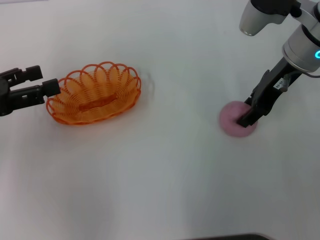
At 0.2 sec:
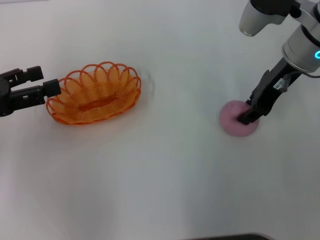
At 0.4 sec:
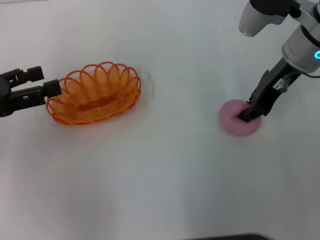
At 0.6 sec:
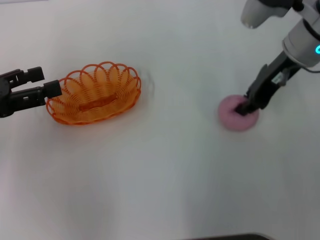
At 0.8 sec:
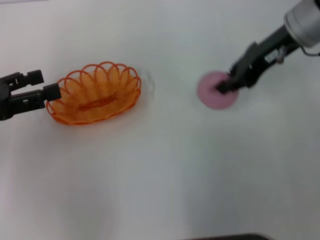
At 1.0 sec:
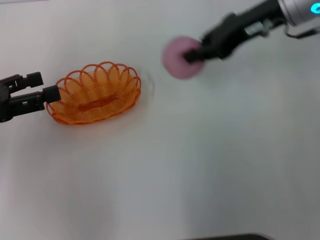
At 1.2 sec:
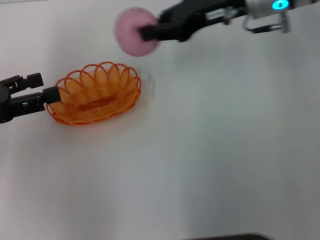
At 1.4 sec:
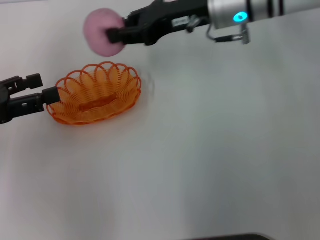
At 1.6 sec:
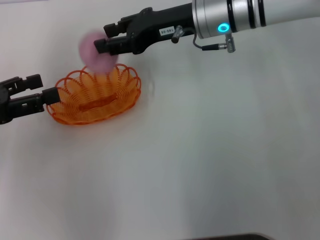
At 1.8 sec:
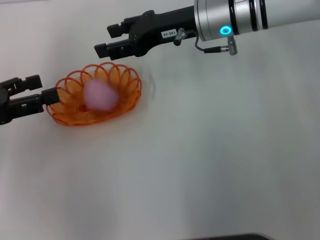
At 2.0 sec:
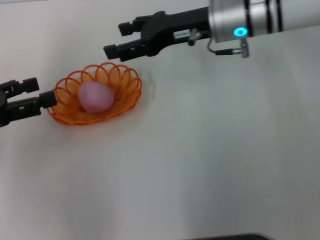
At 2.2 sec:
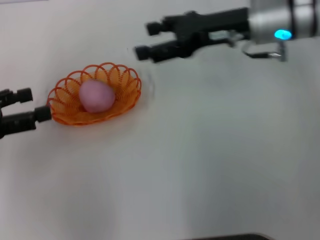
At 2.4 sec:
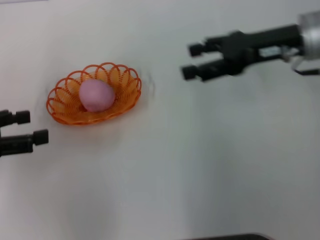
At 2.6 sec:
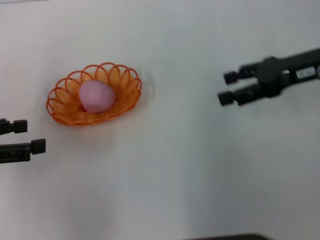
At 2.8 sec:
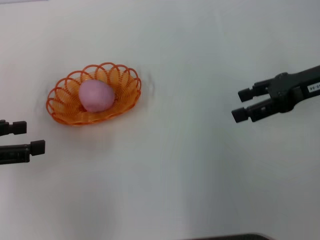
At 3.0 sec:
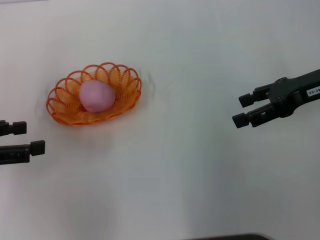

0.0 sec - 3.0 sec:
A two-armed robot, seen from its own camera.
Step, 1.0 sec - 2.0 sec: Place the peach into the basket with the right gripper.
0.0 sec - 1.6 sec: The right gripper is displaced to the left by about 10 cm, and closes its fingers.
1.6 sec - 3.0 sec: The right gripper goes about 20 cm to the right and backward, and opens its fingers.

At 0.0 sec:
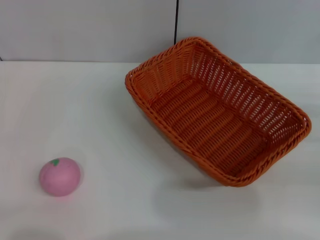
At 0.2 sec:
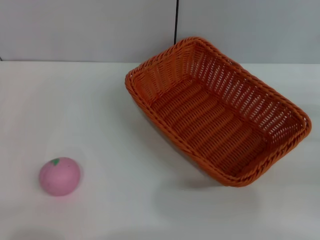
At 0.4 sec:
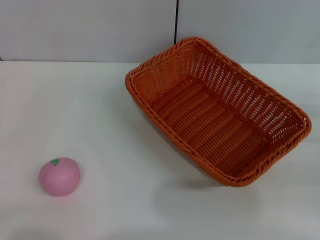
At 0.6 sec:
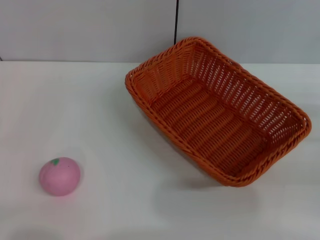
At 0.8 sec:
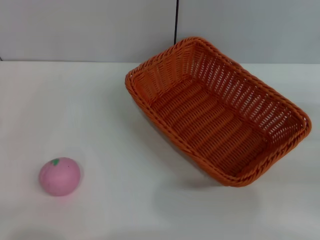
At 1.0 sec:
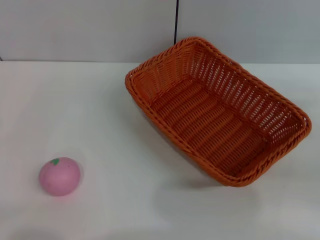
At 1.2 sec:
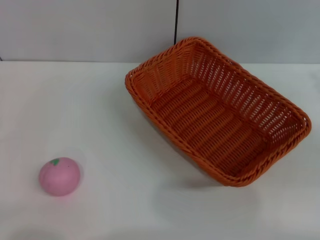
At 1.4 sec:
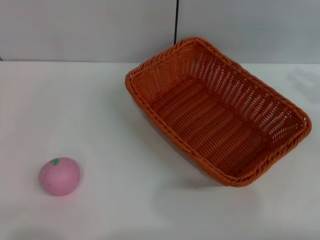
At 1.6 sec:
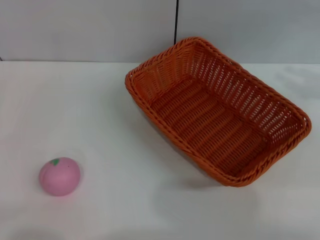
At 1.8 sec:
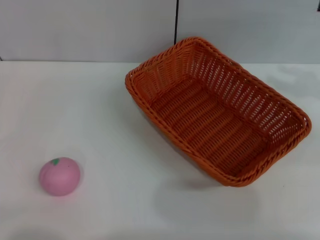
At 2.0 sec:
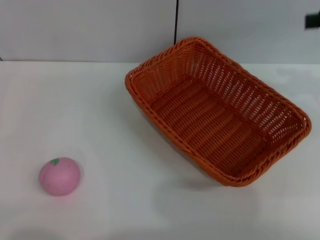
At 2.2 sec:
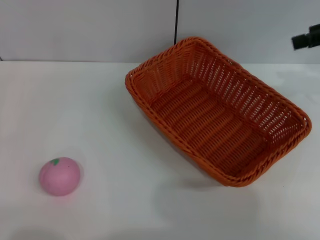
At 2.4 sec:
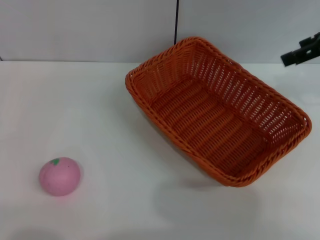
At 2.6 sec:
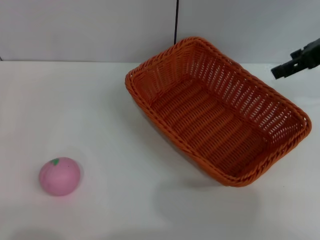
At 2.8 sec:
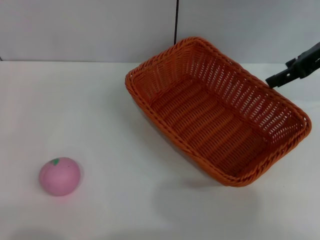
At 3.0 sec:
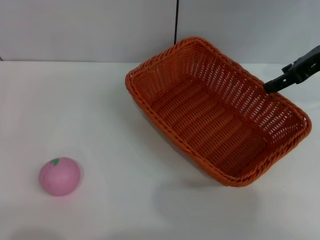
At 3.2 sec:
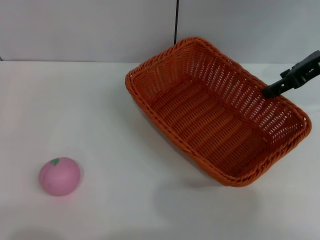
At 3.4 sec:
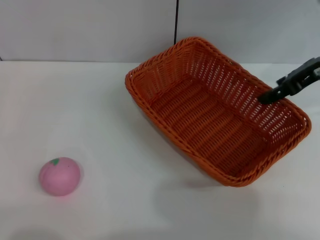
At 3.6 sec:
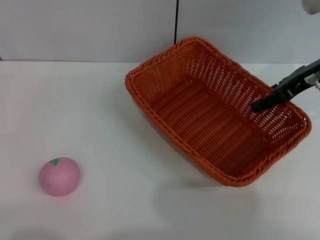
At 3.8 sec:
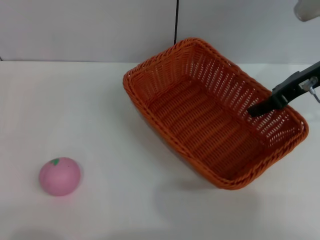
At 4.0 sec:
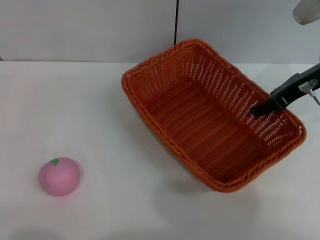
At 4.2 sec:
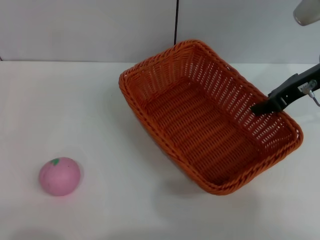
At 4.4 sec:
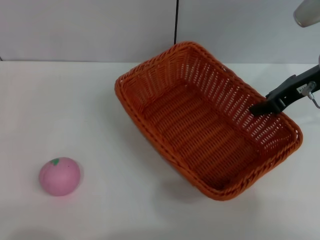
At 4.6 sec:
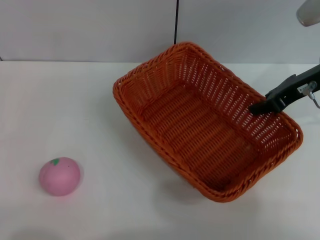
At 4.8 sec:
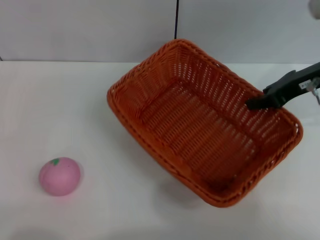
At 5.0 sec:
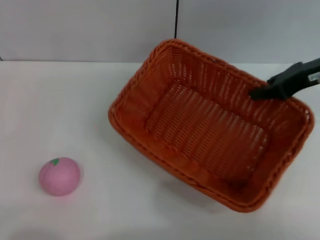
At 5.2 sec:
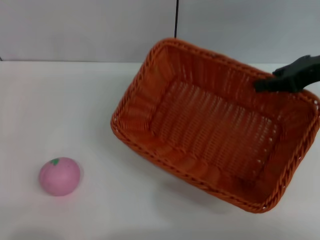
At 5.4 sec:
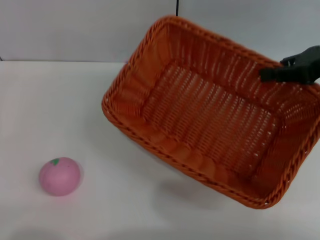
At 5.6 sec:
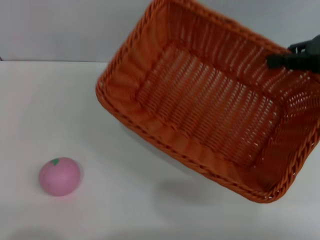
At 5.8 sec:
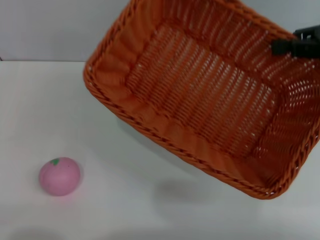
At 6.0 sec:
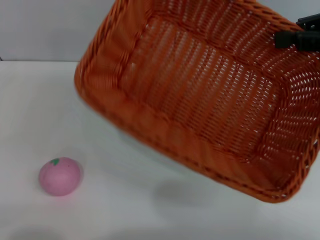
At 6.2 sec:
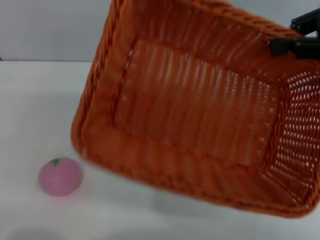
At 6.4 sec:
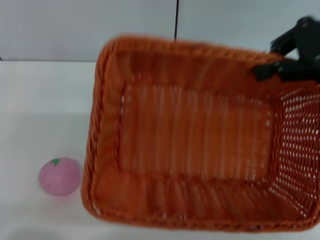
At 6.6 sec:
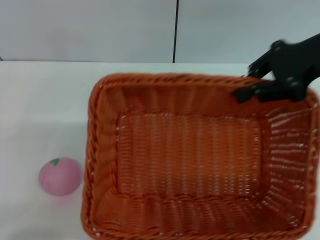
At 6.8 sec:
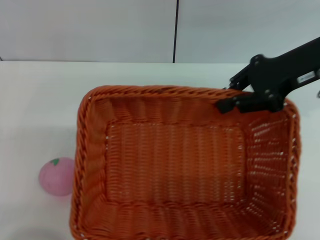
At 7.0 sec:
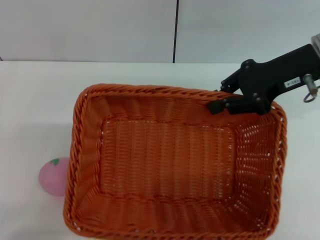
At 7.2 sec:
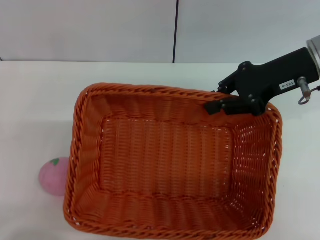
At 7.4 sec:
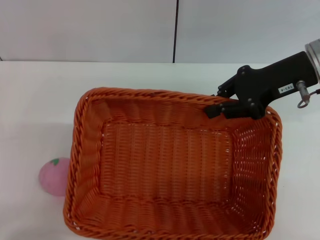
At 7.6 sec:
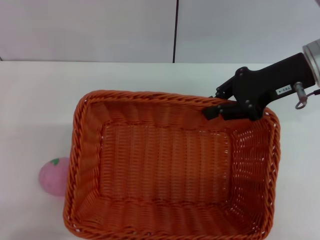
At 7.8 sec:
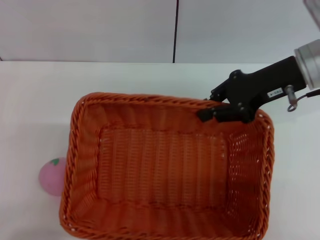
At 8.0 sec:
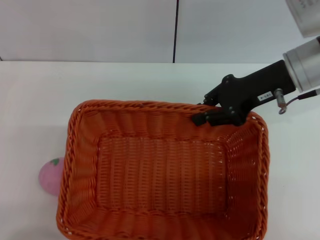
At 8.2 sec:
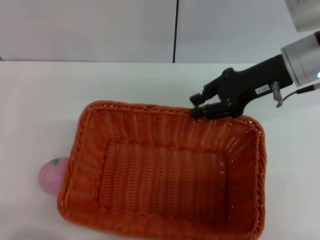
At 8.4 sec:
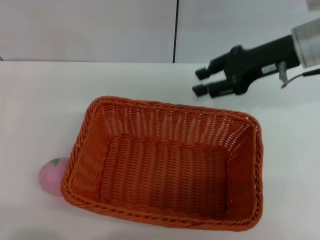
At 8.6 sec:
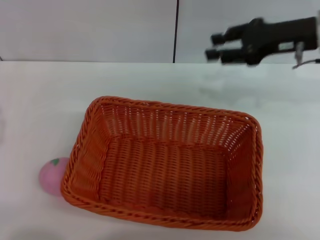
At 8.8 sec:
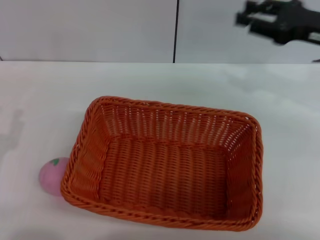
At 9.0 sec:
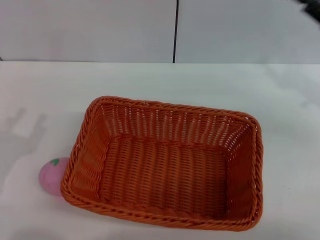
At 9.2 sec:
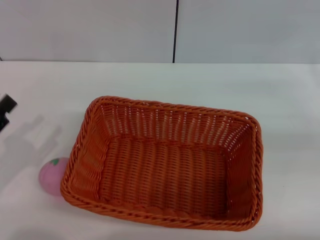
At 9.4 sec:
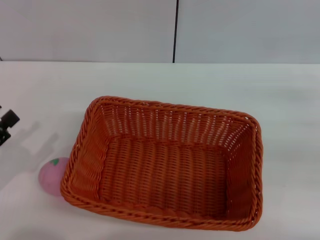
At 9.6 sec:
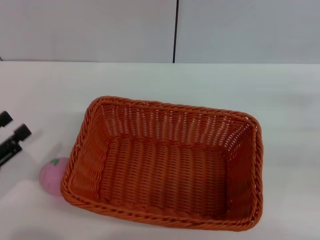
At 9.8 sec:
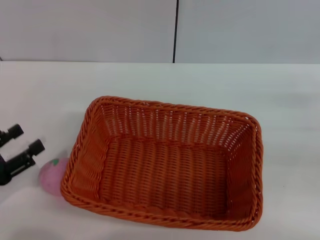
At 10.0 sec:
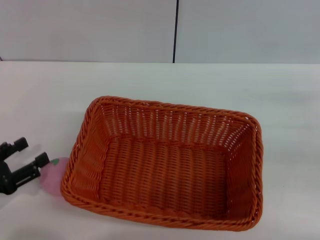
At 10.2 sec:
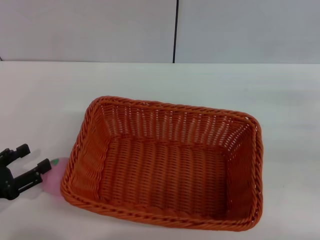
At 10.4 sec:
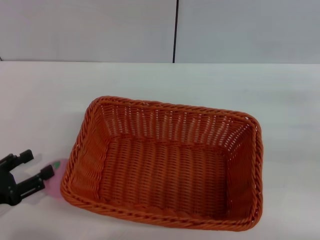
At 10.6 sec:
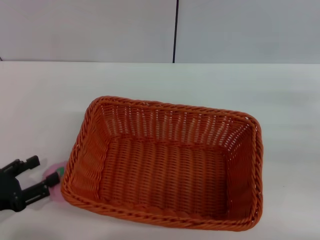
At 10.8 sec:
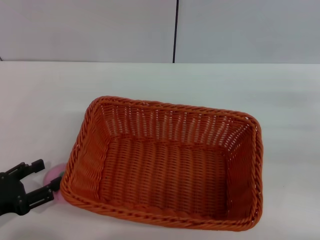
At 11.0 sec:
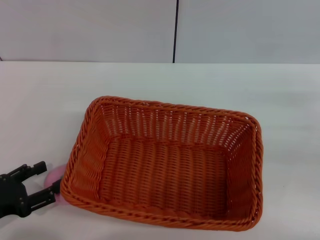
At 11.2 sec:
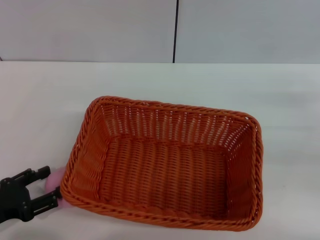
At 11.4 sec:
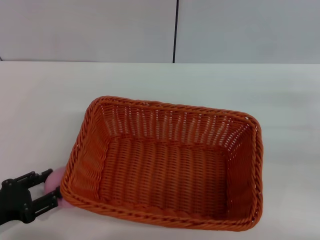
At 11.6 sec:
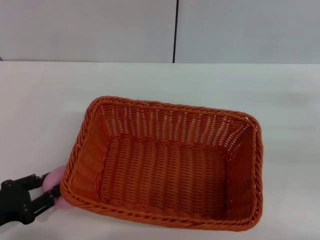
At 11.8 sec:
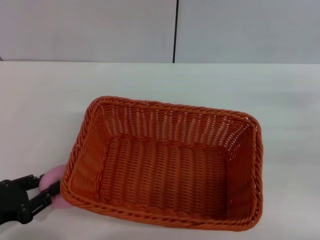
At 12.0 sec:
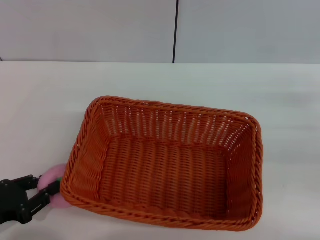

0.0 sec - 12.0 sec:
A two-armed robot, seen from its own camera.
Step, 0.0 sec - 5.4 sec: Pick up the light basket with the right gripper.
Step, 5.8 sec - 8.6 sec: Place the light basket in the center of view with the right gripper.
1.6 sec - 3.0 sec: The right gripper goes approximately 15 cm to the left and forward, and opens its fingers.
3.0 sec - 4.4 sec: The right gripper closes up.
4.4 sec - 6.0 sec: The right gripper heads upward and to the right, covering approximately 10 cm.
6.0 sec - 7.6 sec: The right gripper heads to the left and downward, covering approximately 10 cm.
7.6 sec - 9.0 sec: The right gripper heads to the right, covering some 10 cm, and opens up.
9.0 sec - 10.4 sec: The right gripper moves to the right, approximately 5 cm.
10.4 sec - 12.0 sec: The left gripper closes its fingers.

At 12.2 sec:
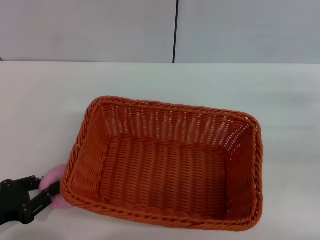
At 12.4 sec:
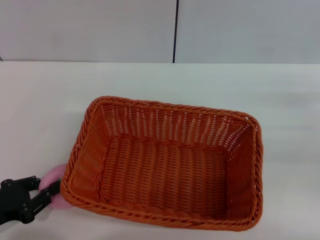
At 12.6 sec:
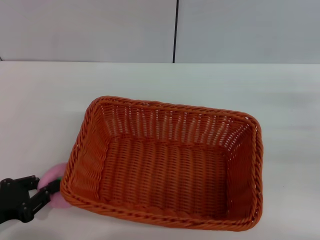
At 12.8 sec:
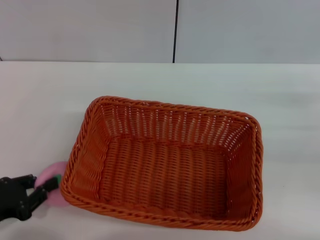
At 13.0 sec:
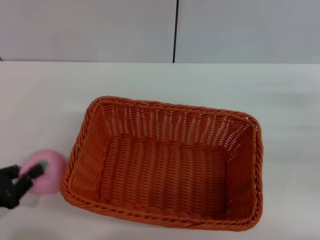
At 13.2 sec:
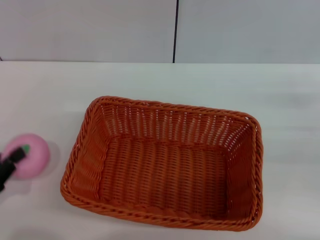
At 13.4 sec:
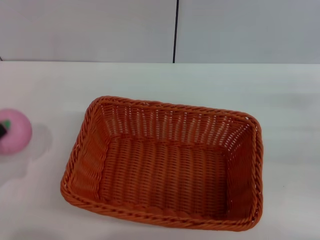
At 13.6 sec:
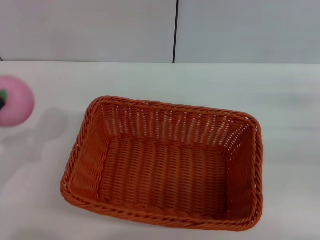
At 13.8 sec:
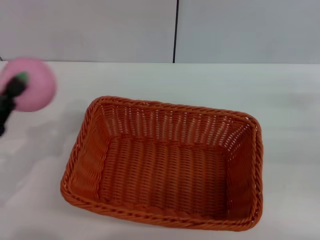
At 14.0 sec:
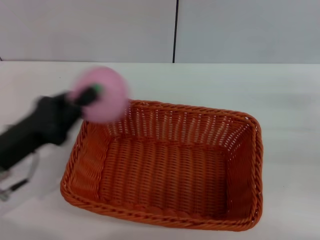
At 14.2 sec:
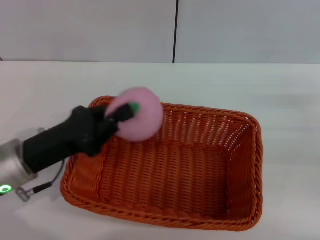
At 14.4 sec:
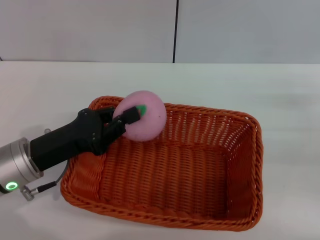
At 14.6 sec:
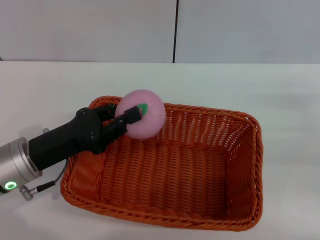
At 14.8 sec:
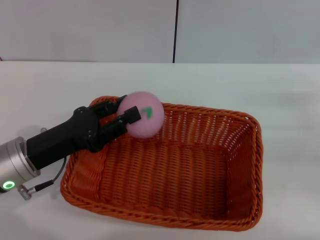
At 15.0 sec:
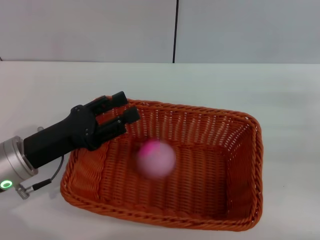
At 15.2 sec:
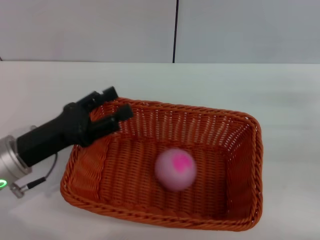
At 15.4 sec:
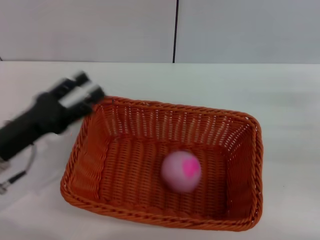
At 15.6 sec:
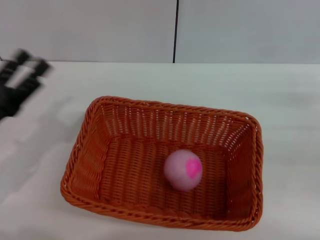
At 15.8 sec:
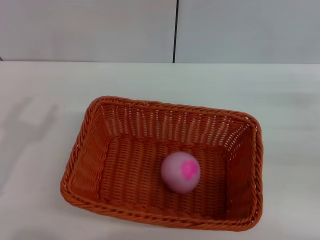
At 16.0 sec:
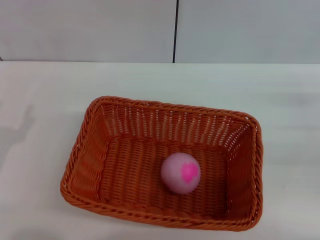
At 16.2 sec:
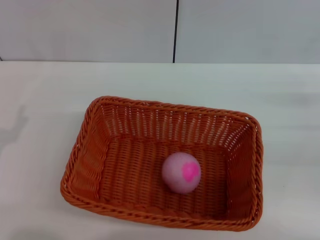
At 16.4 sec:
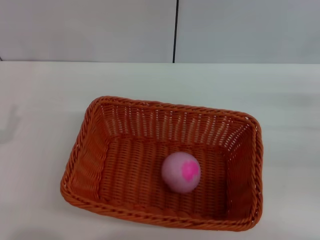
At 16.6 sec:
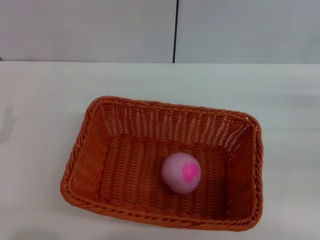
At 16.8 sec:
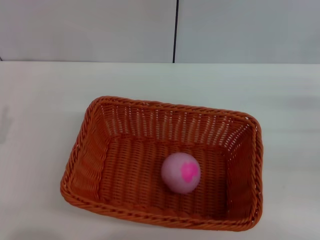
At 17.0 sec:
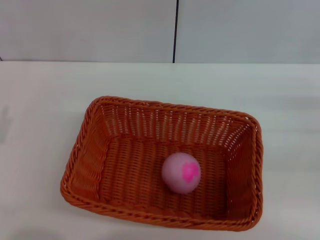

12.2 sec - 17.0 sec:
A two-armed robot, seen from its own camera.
Step, 14.0 sec - 15.2 sec: Place the peach into the basket with the left gripper.
12.2 sec - 13.8 sec: The left gripper is displaced upward by roughly 5 cm.
13.8 sec - 15.4 sec: The left gripper opens up.
15.4 sec - 17.0 sec: The left gripper shifts about 10 cm backward and to the left.
